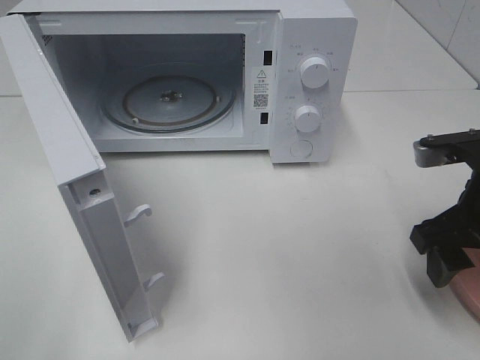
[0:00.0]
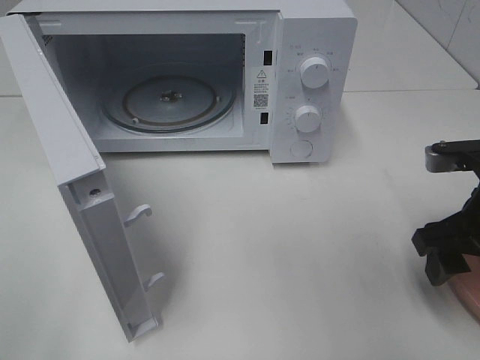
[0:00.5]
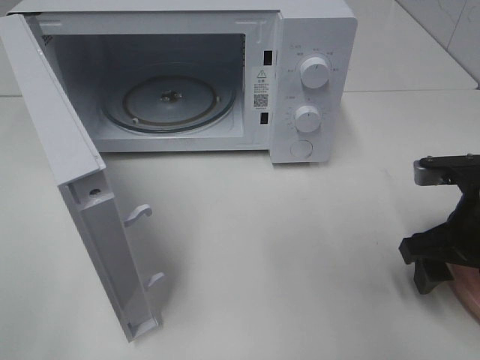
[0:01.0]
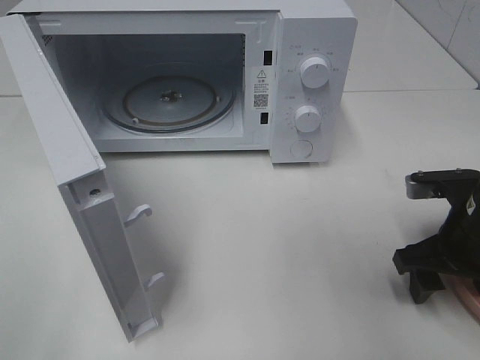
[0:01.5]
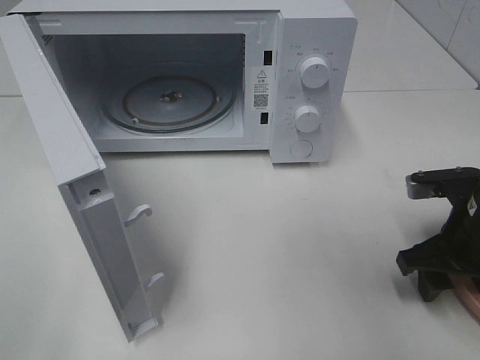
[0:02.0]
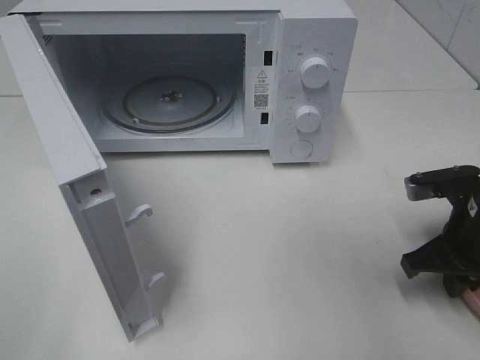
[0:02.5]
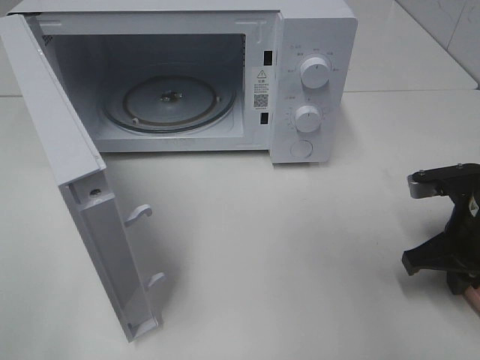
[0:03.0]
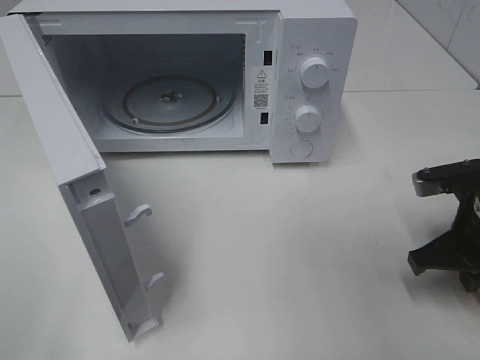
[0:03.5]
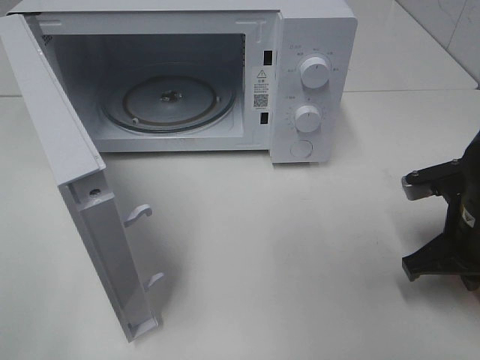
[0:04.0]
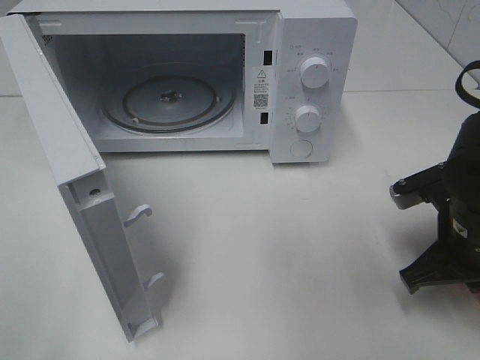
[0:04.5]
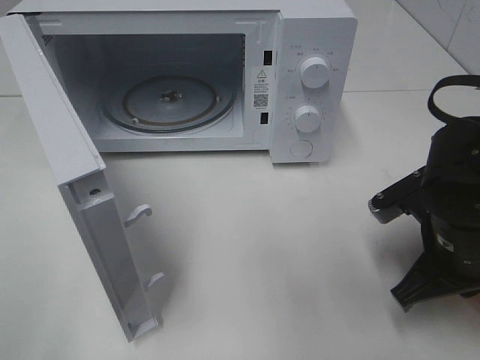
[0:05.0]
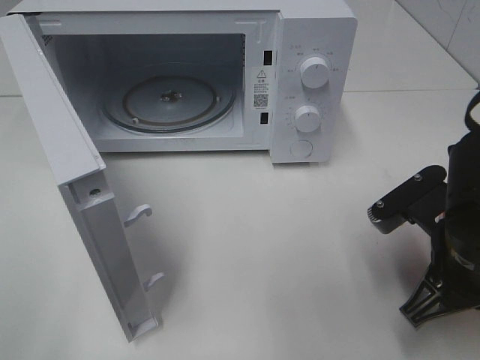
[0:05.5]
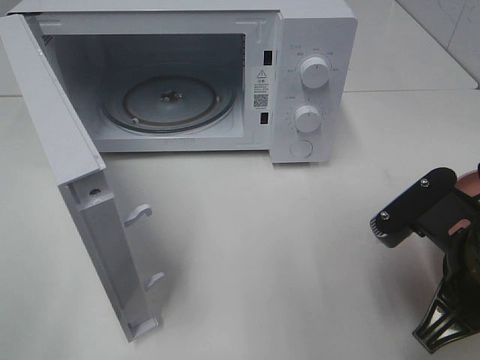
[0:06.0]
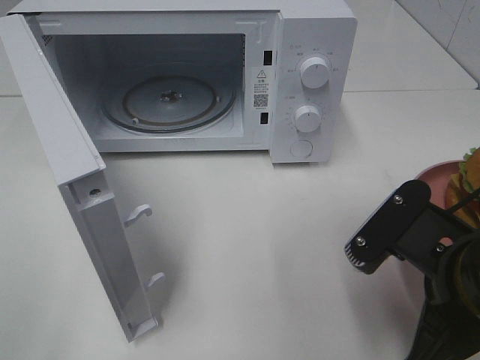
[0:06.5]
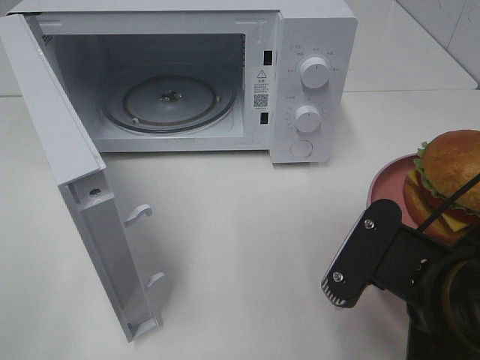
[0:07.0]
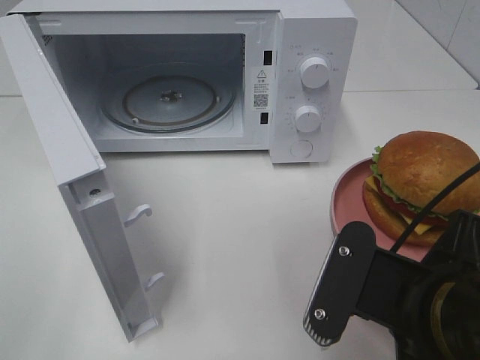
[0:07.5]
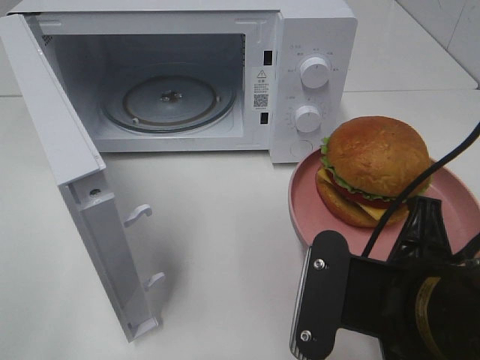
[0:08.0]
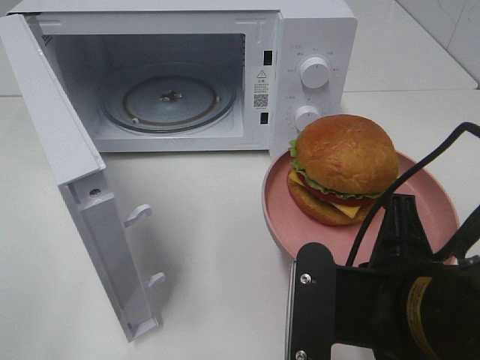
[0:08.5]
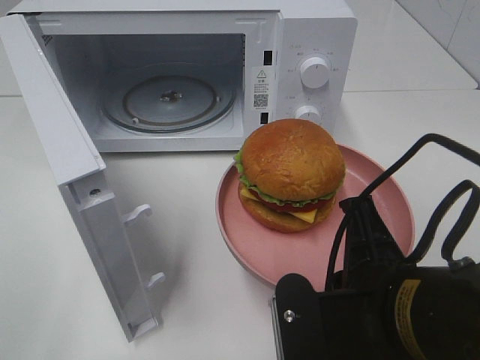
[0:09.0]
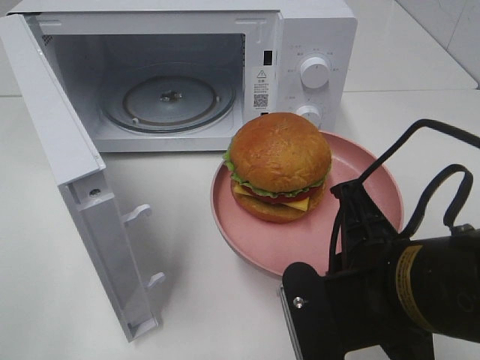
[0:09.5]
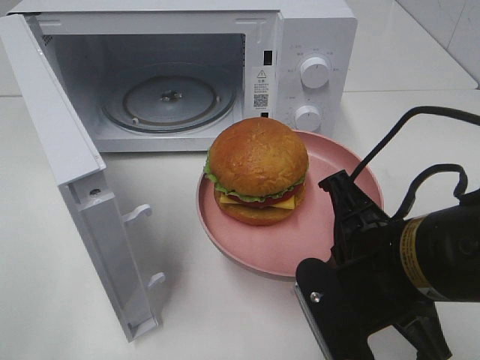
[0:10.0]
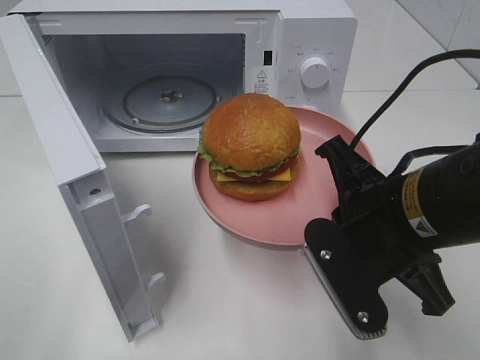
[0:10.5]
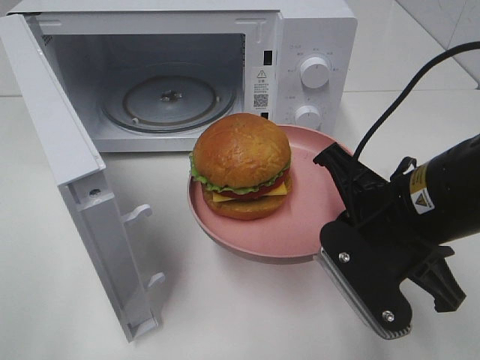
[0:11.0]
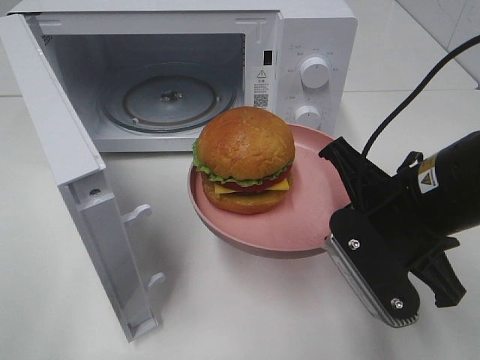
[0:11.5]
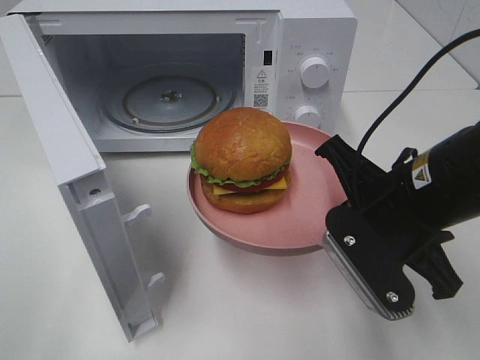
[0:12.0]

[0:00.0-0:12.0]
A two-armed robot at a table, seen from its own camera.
Task of the whole recording: Heat the burger.
Step, 0:00.0 to 0:03.5: Right hand: grab the plate with the hamburger.
0:00.0 to 0:02.0: The right gripper goes roughly 5 cm downward.
0:02.0 to 0:04.0: The right gripper closes its fingers.
0:04.0 to 0:06.0: The right gripper goes approximately 10 cm backward and to the left.
0:06.0 to 0:08.0: The right gripper is displaced to the left by roughly 5 cm.
0:10.0 to 0:12.0: The right gripper moves forward, about 5 cm.

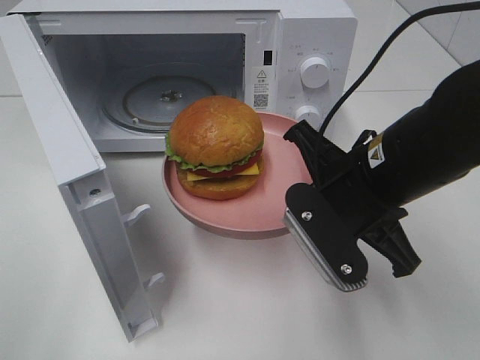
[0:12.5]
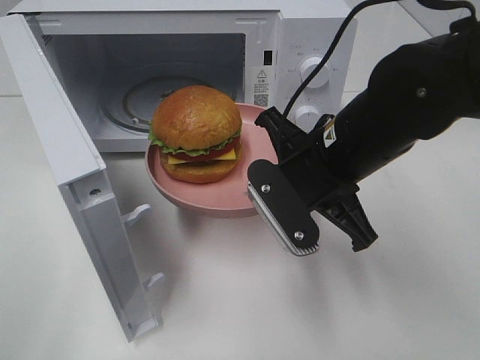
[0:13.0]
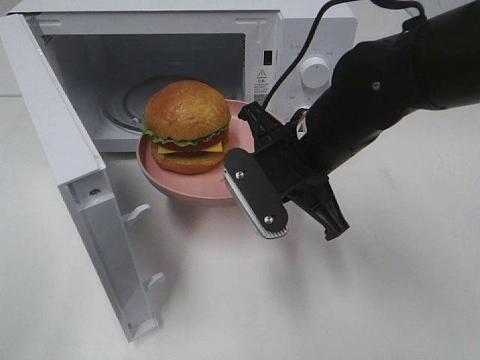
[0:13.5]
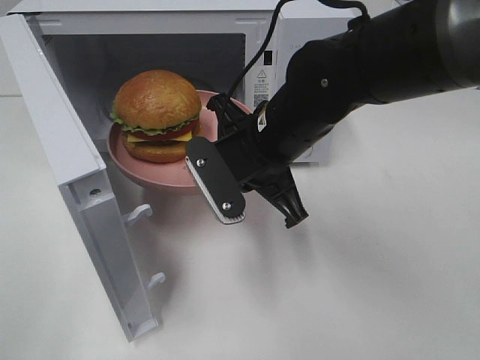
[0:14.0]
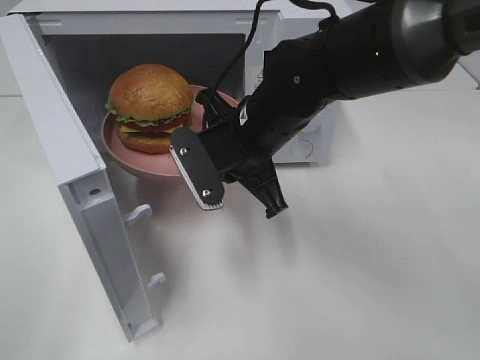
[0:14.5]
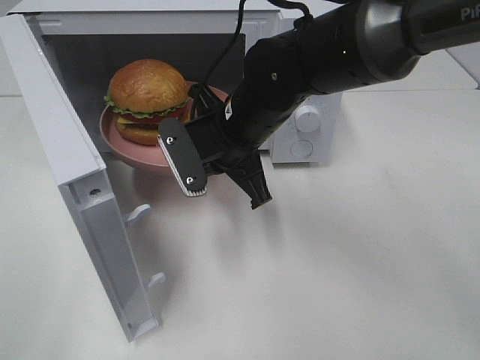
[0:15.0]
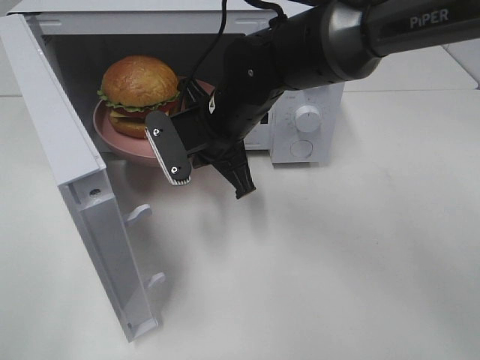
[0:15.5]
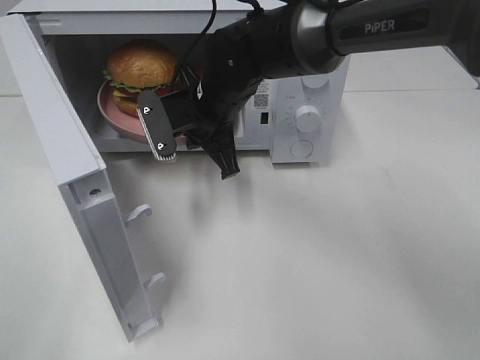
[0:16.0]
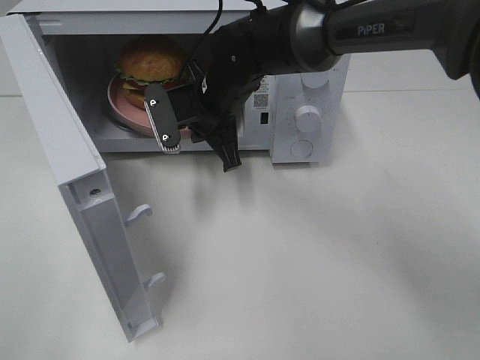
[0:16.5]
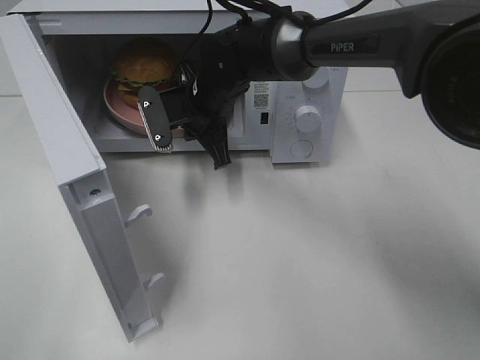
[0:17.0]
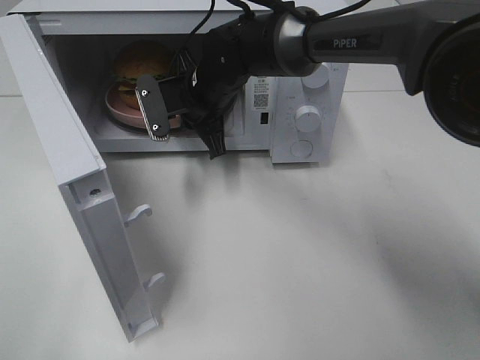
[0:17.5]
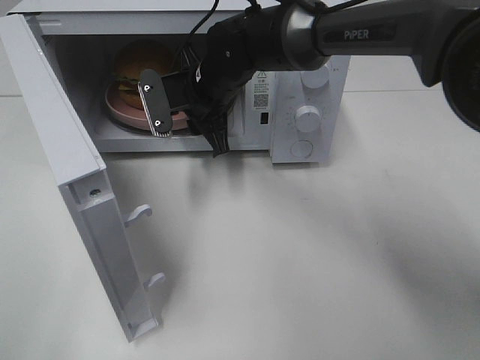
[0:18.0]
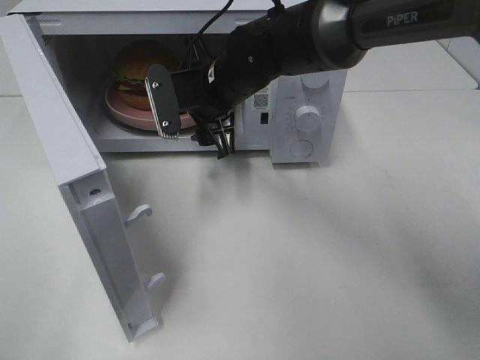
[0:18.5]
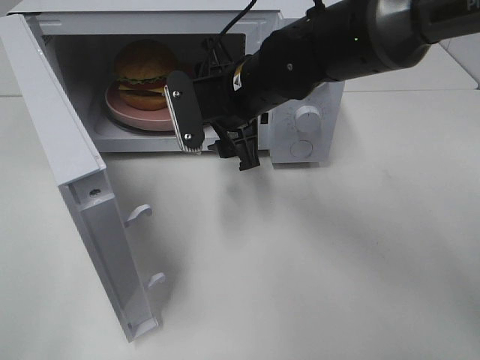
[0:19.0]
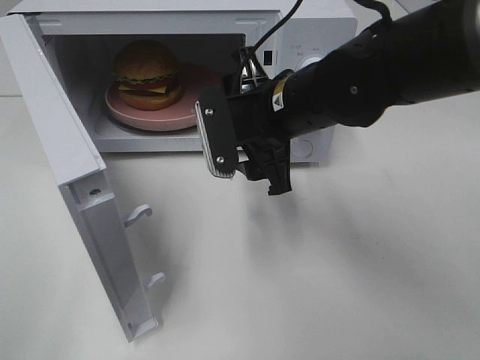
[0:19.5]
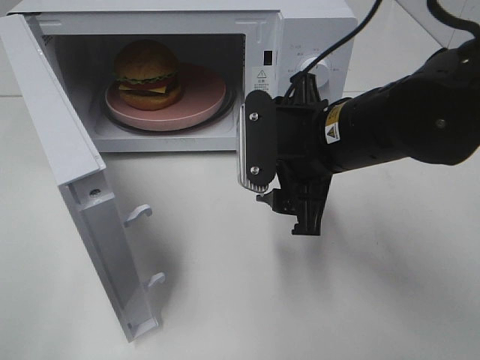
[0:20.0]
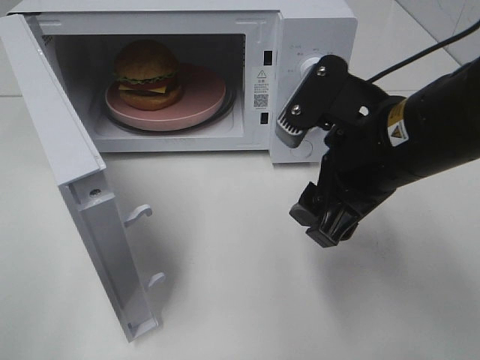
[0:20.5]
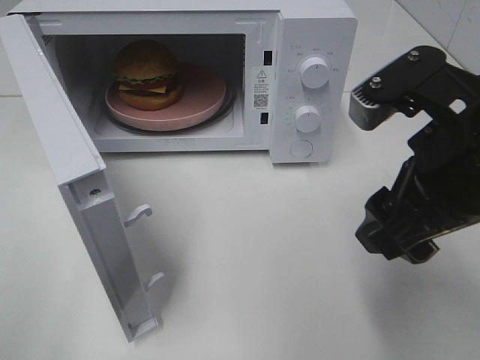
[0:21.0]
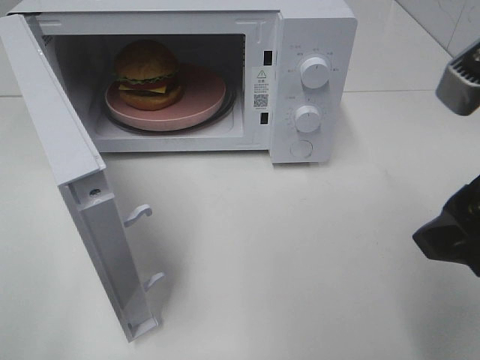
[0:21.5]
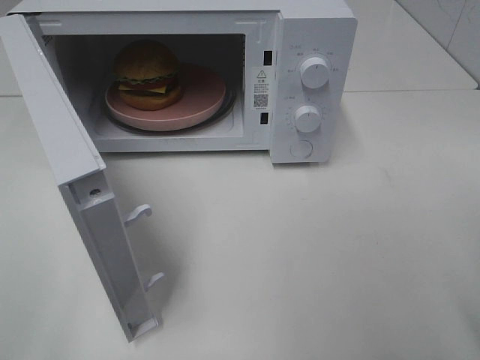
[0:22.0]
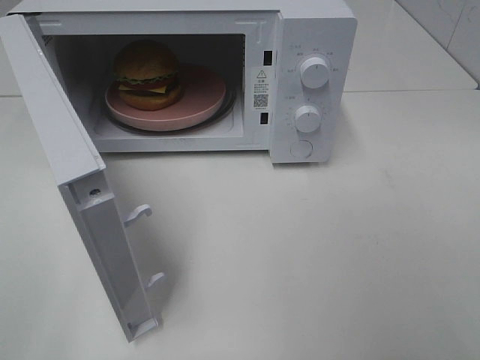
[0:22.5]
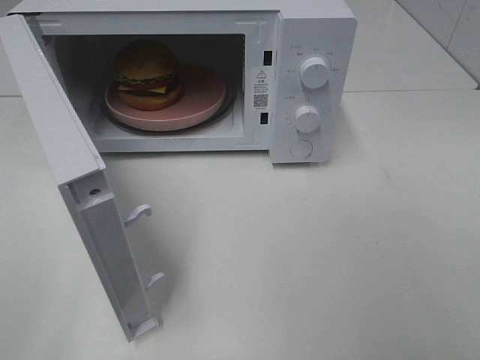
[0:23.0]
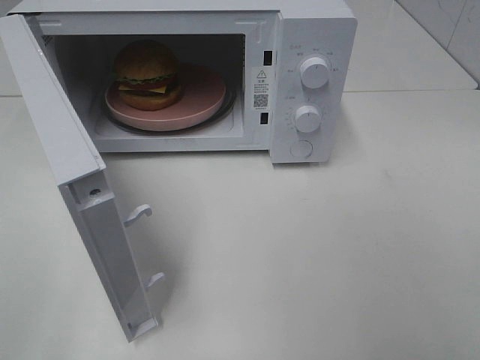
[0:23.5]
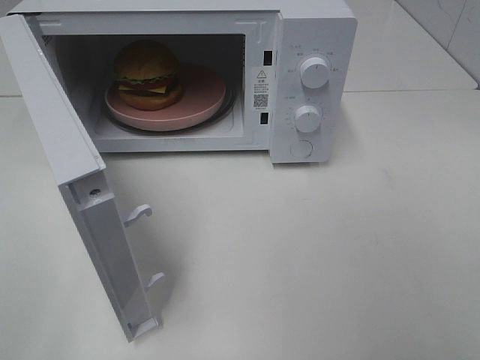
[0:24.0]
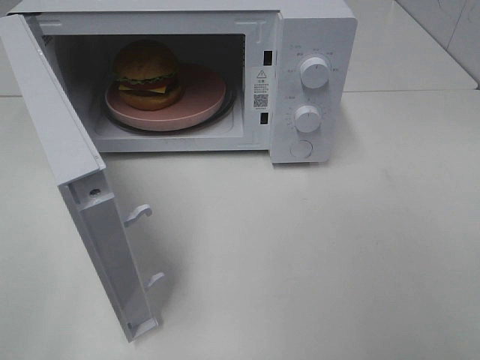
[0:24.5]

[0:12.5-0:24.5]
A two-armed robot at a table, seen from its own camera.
Task of the whole recording: Heat the burger.
Step, 0:12.5 to 0:17.5: Right hand: place the plate in the microwave.
0:12.5 to 0:14.5: The right gripper moves to the left and forward, about 15 cm.
0:14.5 to 0:16.5: The right gripper heads forward, covering approximately 10 cm.
0:16.5 to 0:18.5: The right gripper opens.
0:18.5 to 0:20.5: The right gripper goes approximately 20 cm backward and to the right.
0:20.5 to 0:22.5: The right gripper moves backward and to the right, some 25 cm.

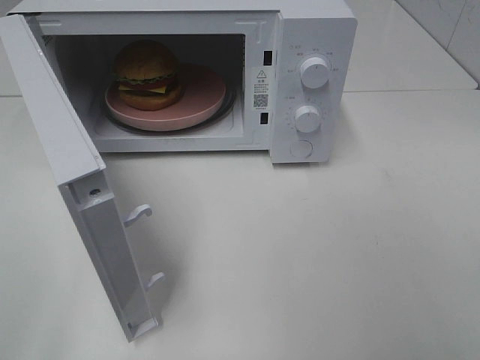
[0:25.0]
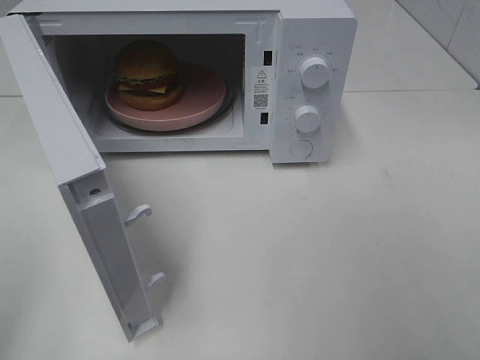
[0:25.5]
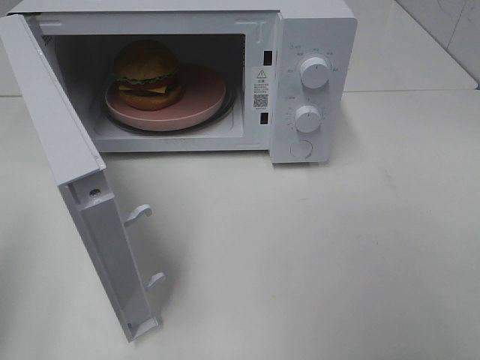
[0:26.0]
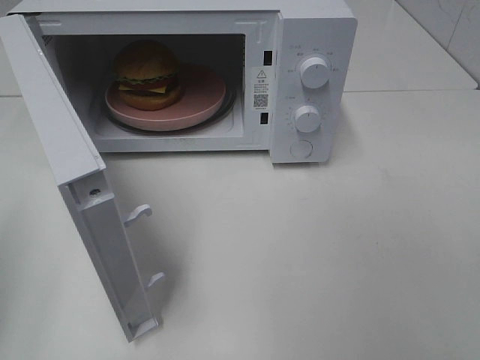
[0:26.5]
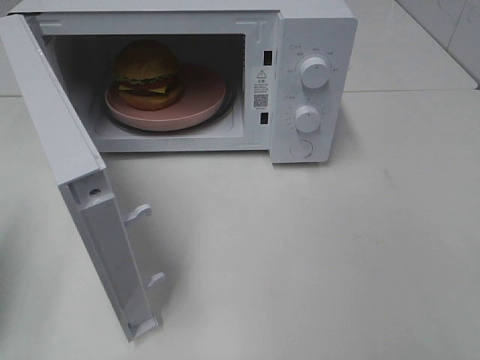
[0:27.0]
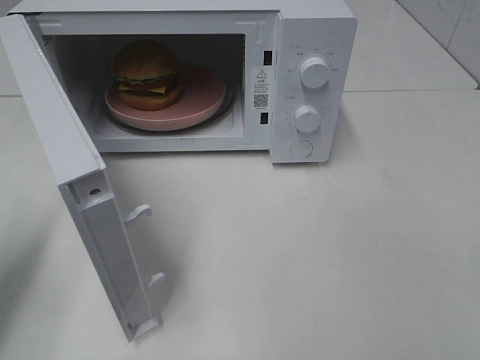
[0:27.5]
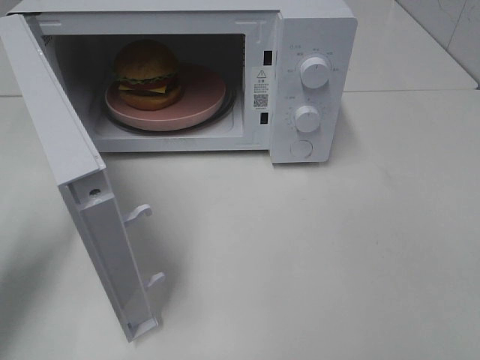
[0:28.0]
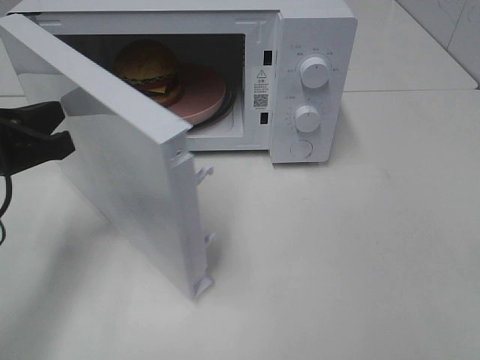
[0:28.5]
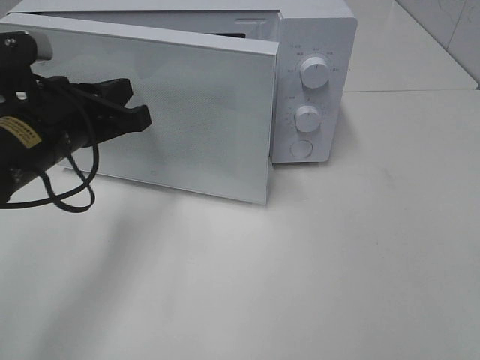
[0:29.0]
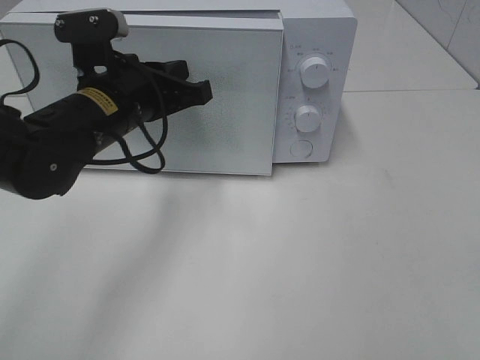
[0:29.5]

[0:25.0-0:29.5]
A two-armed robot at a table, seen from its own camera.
Task of the whole recording: Heat the burger.
0:25.0 to 0:27.0: The left gripper travels forward and downward by roughly 15 cm, and closes its fingers.
0:27.0 to 0:29.5: The left gripper is displaced to the right and forward by approximately 25 cm.
